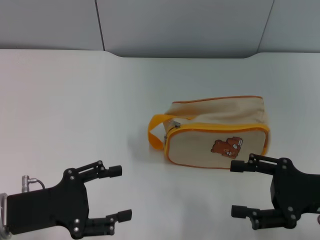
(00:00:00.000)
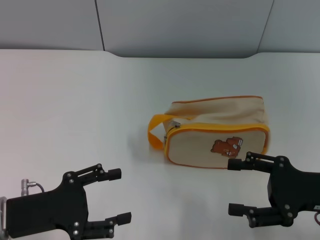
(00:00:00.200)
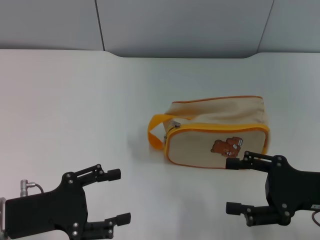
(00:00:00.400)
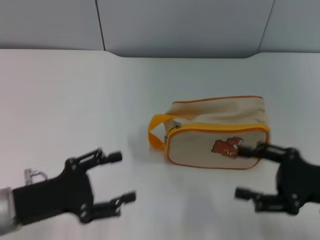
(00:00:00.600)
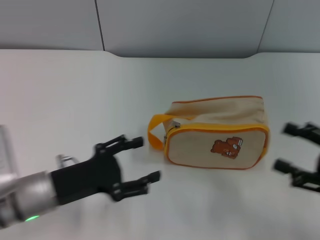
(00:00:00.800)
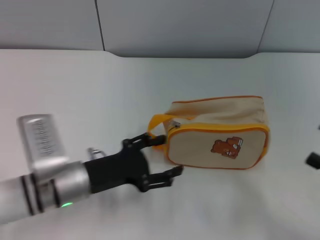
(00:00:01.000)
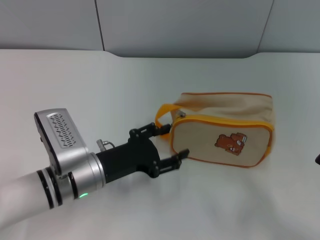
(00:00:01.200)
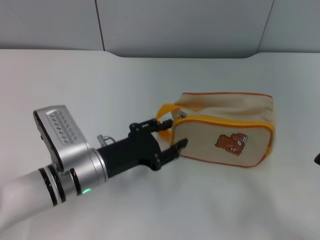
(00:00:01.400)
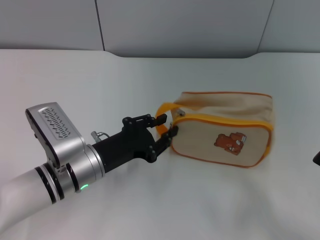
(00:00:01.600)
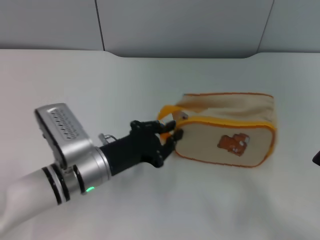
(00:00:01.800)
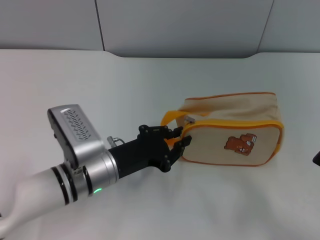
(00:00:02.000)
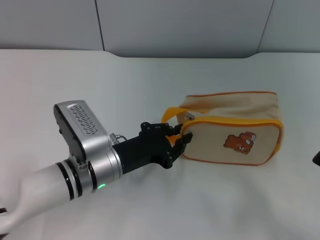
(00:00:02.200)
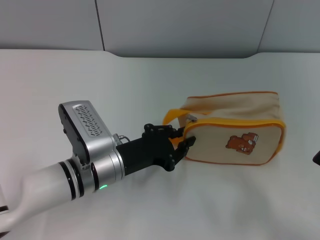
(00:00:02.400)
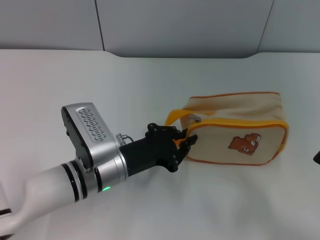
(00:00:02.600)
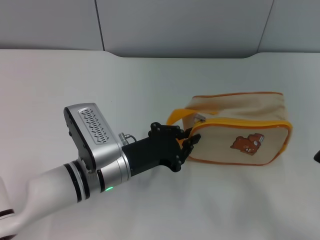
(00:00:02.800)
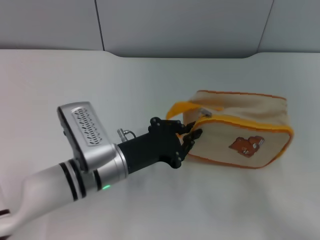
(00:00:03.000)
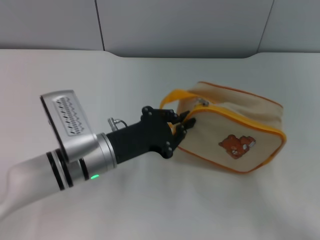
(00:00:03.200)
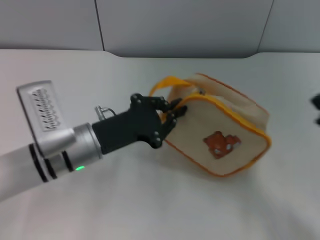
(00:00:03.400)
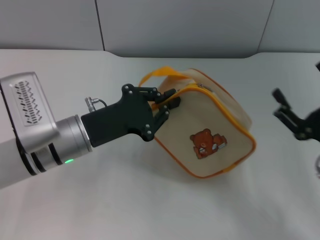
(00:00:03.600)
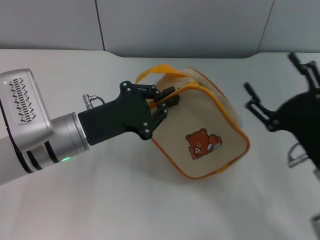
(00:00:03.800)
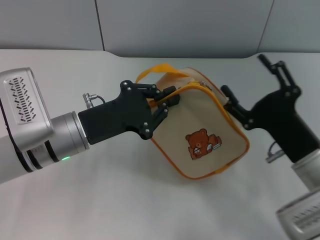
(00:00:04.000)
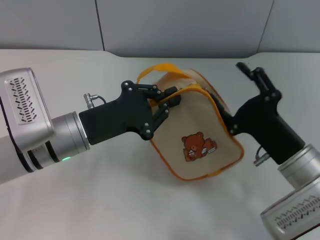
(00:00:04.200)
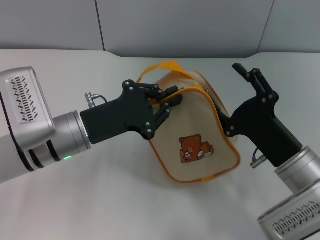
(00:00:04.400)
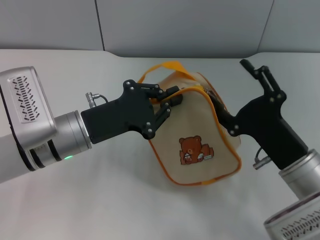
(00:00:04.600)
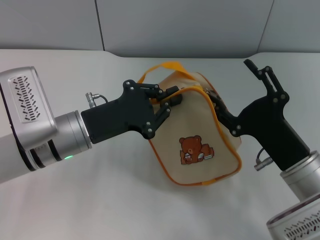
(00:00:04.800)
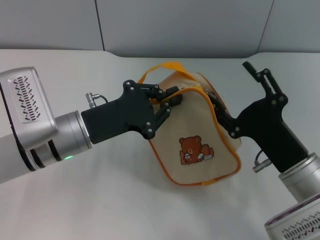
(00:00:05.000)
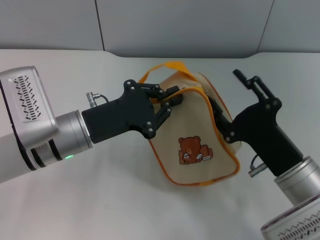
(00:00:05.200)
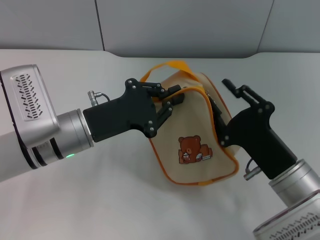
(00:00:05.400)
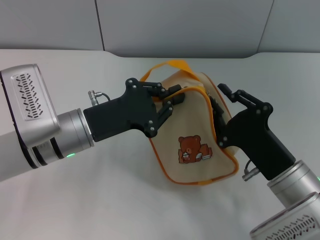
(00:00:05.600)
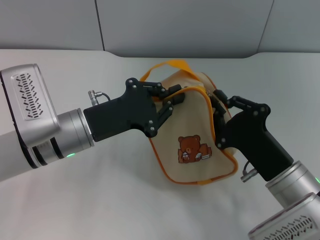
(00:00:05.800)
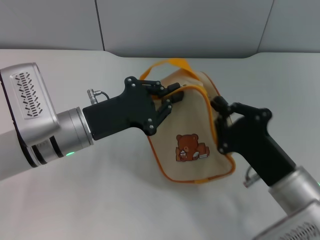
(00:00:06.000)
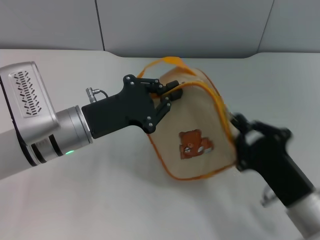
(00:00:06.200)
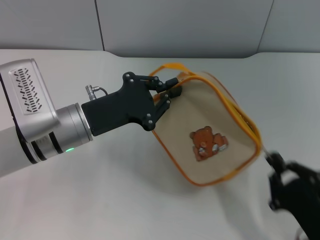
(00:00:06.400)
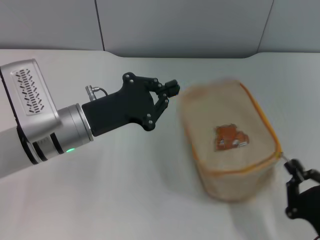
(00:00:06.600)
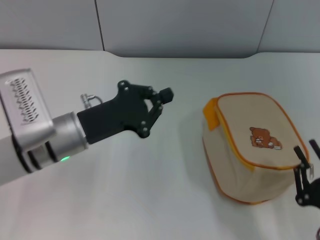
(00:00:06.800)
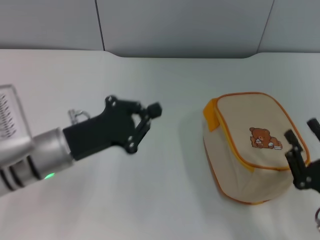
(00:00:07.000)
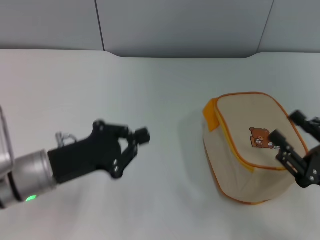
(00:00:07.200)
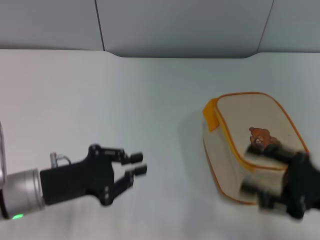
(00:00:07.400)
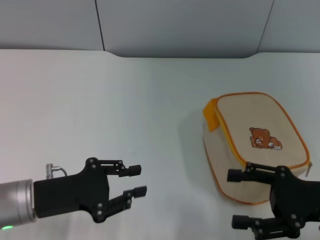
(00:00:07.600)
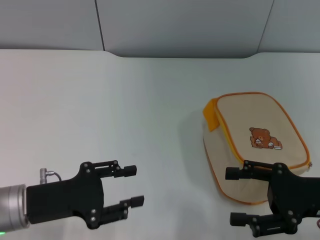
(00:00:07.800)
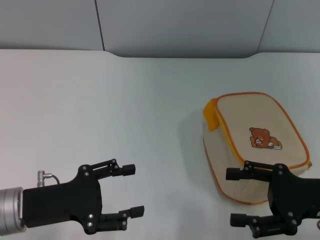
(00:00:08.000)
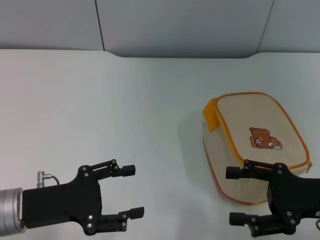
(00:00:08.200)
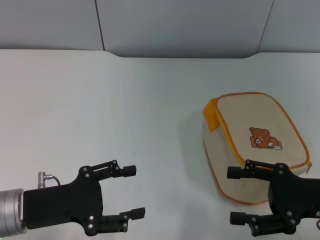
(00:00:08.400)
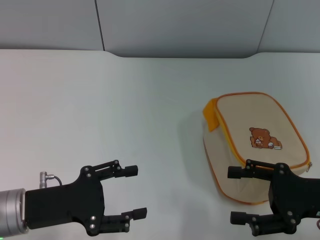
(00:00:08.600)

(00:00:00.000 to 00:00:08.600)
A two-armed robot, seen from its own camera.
Step, 00:00:00.000 - 00:00:03.600: Pick up the bag with left gripper.
Step, 00:00:03.800 - 00:00:06.800: Unzip the zipper of bag with right gripper.
00:00:00.000 - 00:00:01.400: The left gripper goes approximately 15 cm to the right and forward; the right gripper goes about 10 cm to the right and backward.
00:00:01.400 - 00:00:02.800: The left gripper closes up.
00:00:02.800 - 00:00:04.400: The right gripper shifts approximately 20 cm to the left and forward; the left gripper shifts about 5 cm upward and to the left.
00:00:04.400 - 00:00:05.800: The right gripper closes its fingers.
00:00:05.800 - 00:00:07.200: The right gripper shifts roughly 10 cm to the right, and closes, then opens again, while the left gripper moves to the left, about 5 cm.
00:00:07.200 - 00:00:08.600: The left gripper opens its fingers, while the right gripper changes place by approximately 5 cm, and opens up.

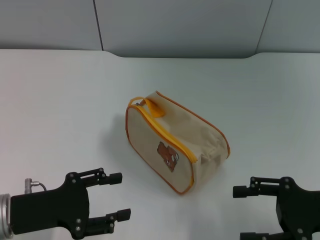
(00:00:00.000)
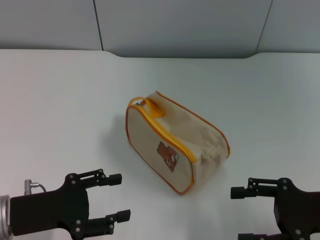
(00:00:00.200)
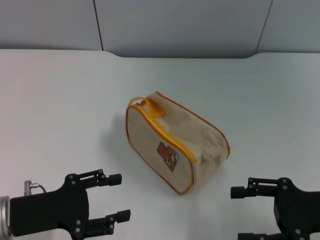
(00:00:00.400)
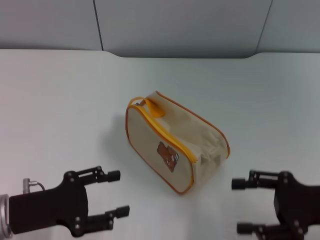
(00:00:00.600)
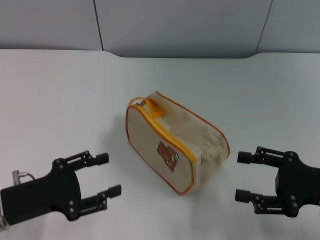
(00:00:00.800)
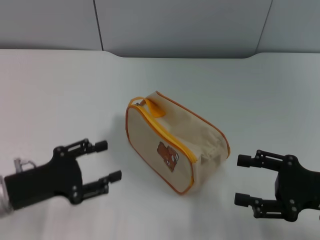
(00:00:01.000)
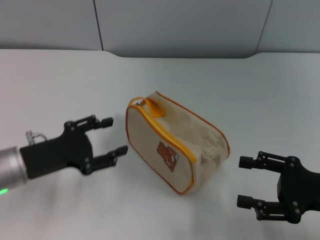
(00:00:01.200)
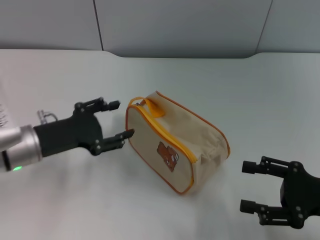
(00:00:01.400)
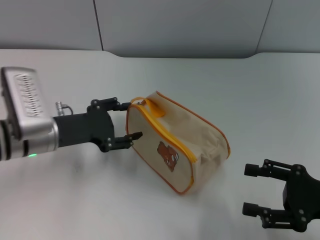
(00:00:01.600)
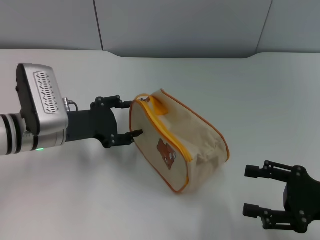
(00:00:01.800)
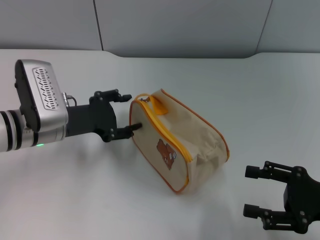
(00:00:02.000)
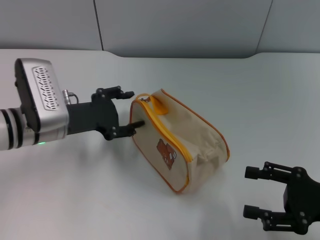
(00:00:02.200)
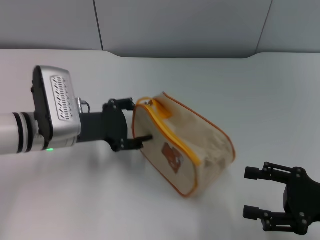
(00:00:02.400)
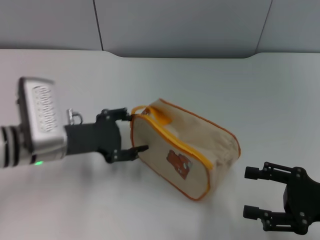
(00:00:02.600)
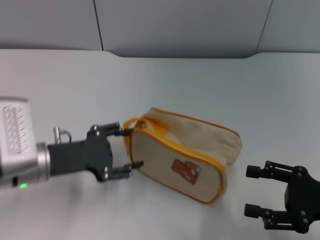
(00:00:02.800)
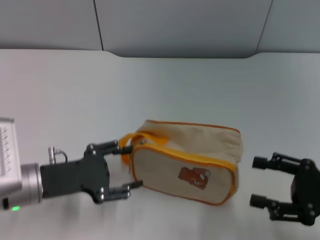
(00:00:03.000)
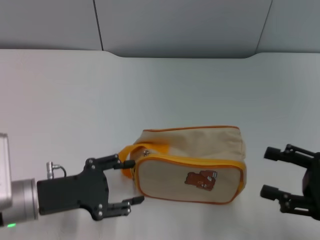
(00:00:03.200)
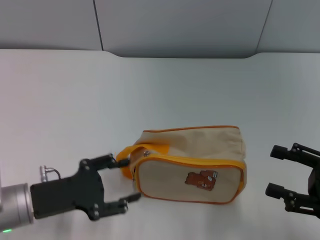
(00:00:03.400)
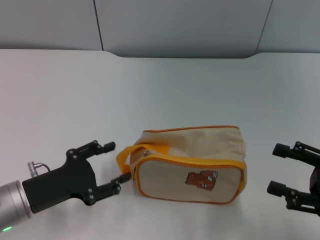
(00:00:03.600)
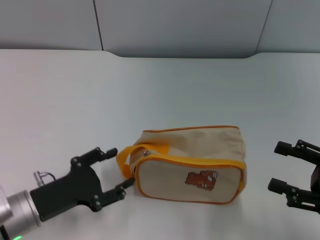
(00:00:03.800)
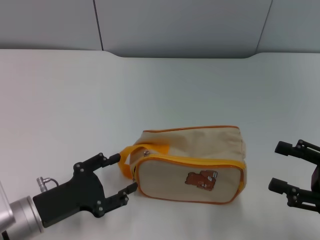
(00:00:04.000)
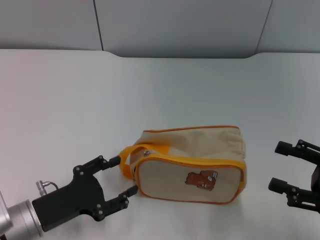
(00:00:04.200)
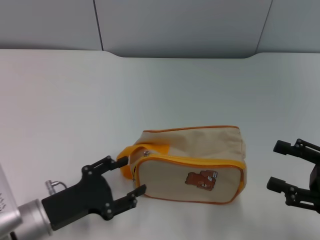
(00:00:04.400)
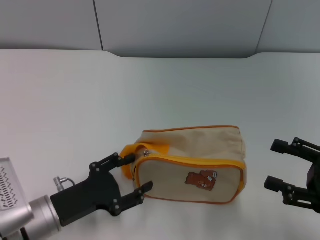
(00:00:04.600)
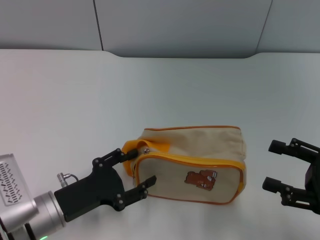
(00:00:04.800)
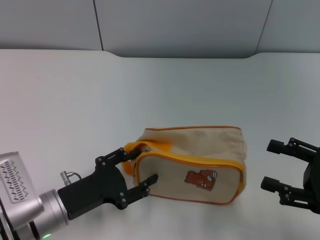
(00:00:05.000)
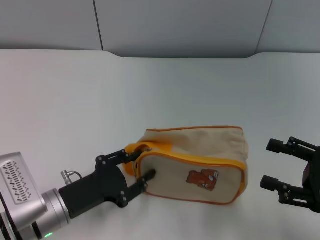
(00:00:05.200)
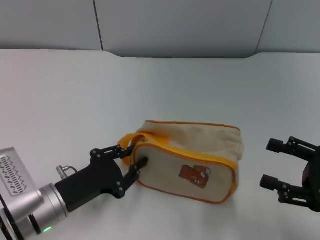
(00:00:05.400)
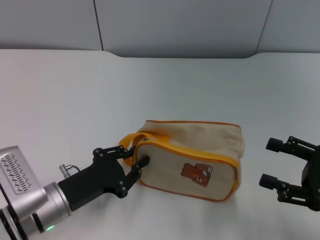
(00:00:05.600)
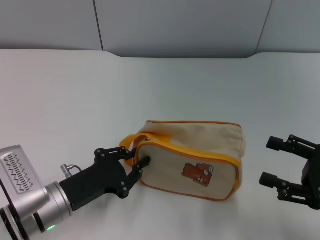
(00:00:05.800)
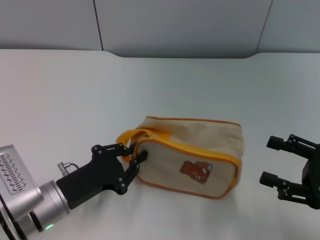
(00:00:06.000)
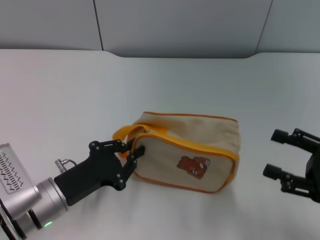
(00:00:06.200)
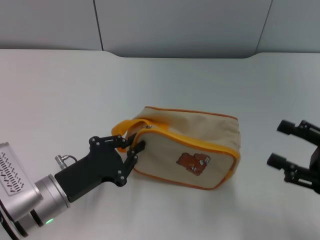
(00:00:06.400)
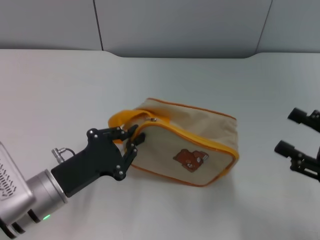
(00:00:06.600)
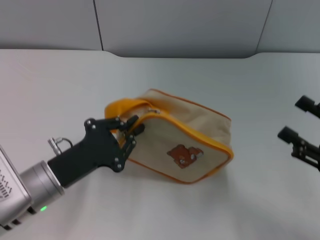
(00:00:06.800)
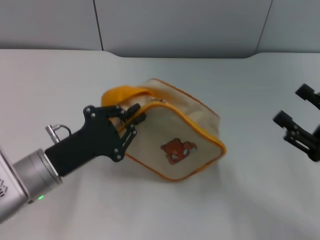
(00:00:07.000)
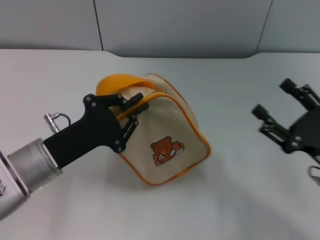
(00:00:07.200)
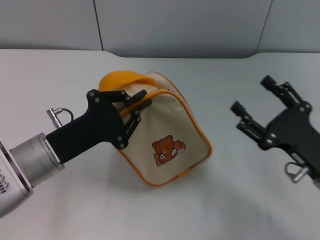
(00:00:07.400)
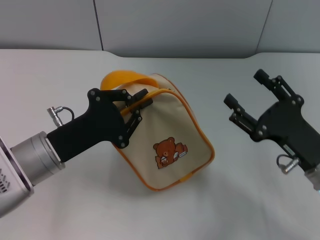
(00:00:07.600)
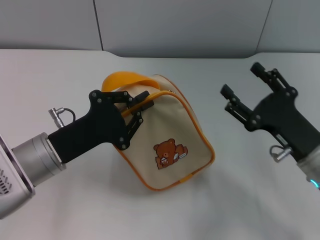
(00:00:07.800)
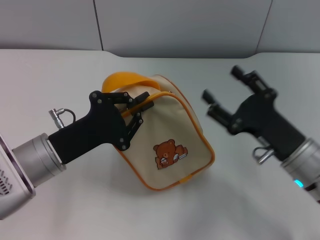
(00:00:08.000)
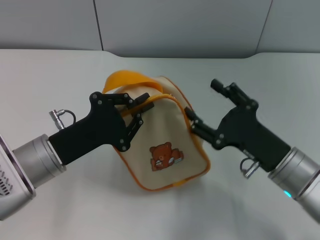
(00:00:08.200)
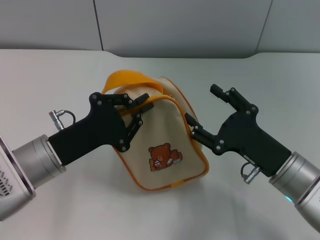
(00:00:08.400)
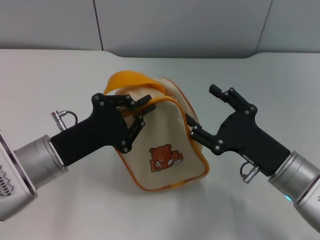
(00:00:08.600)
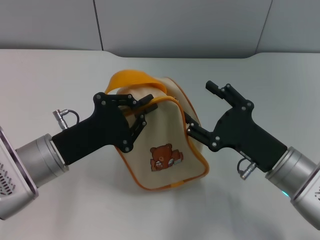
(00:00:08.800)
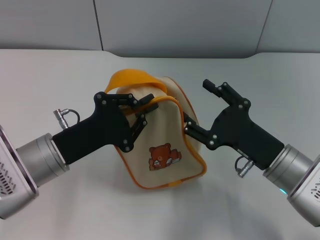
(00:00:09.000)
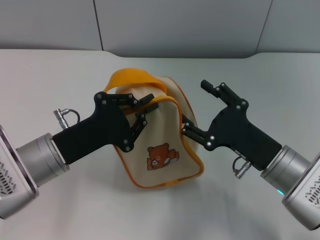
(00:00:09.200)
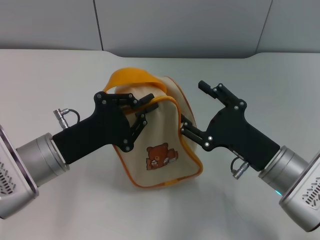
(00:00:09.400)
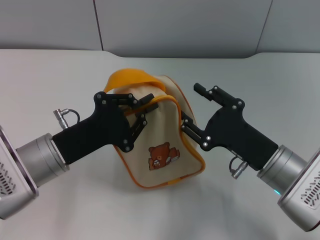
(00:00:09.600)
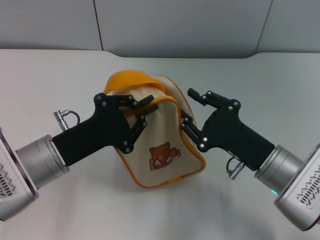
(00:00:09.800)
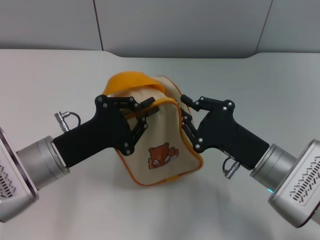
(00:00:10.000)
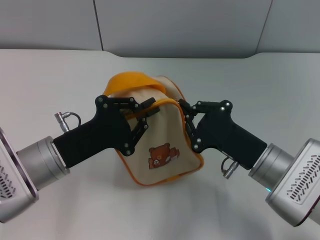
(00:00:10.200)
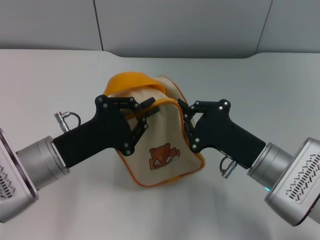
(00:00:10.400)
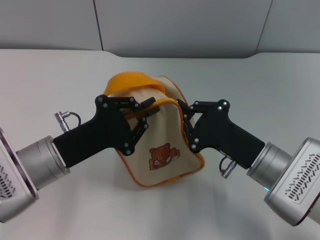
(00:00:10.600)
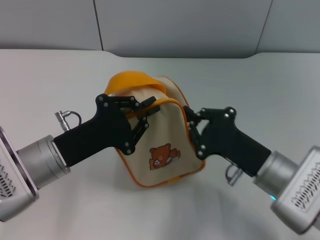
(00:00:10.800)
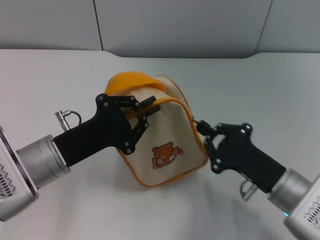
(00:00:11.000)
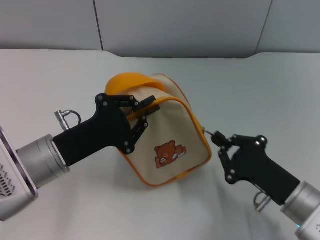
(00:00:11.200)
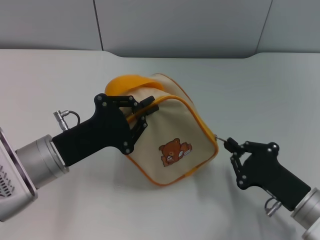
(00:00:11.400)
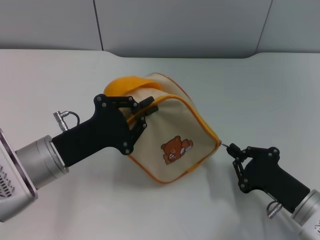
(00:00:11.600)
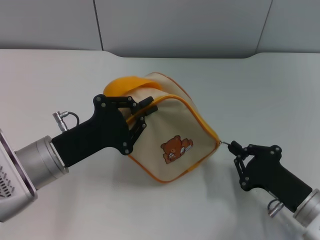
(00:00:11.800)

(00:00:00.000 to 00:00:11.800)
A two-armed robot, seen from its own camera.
Step, 00:00:00.000 - 00:00:06.600: Pick up the bag with left gripper.
00:00:00.000 - 00:00:01.400: The left gripper shifts roughly 10 cm forward.
00:00:01.400 - 00:00:03.000: The left gripper heads backward, covering roughly 5 cm.
00:00:03.000 - 00:00:04.400: The left gripper changes place by approximately 5 cm.
00:00:04.400 - 00:00:06.000: The left gripper closes its fingers.
00:00:06.000 - 00:00:07.400: The right gripper moves to the left, roughly 5 cm. Meanwhile the left gripper goes roughly 5 cm upward.
00:00:07.400 - 00:00:08.800: The right gripper is displaced to the left by some 5 cm.
00:00:08.800 - 00:00:10.400: The right gripper closes.
00:00:10.400 - 00:00:11.800: The right gripper is displaced to the right and backward by some 10 cm.

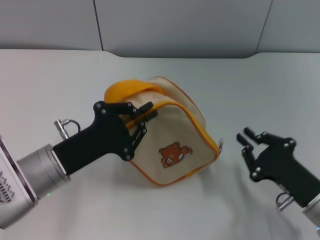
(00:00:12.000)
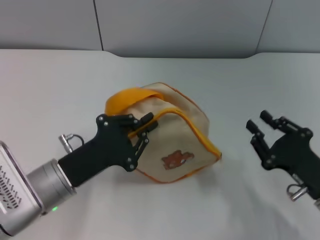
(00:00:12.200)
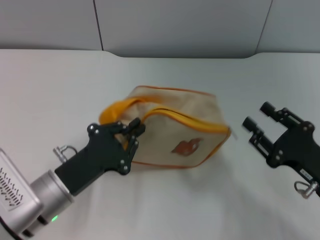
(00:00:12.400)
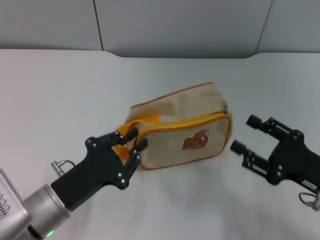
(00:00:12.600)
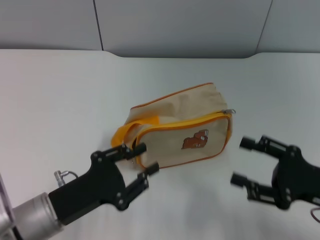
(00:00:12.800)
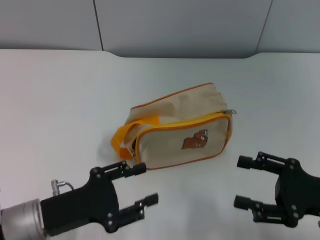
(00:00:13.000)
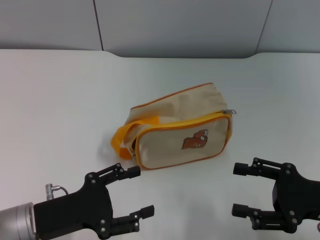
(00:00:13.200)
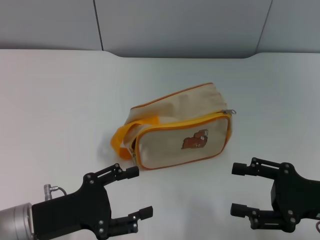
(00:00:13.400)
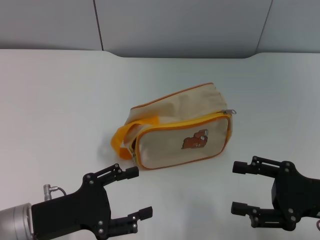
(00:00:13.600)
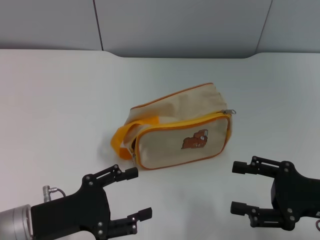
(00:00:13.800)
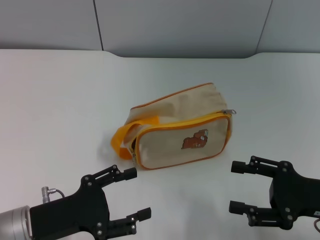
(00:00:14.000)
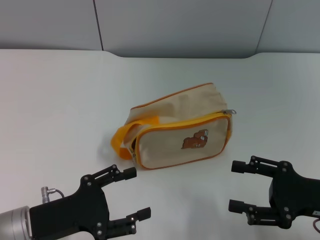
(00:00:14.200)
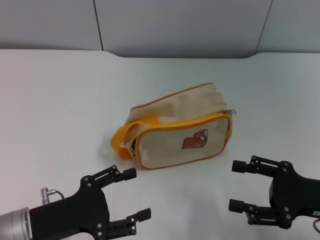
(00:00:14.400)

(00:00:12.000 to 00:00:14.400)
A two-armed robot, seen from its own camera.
Step, 00:00:12.200 - 00:00:12.600: Place the bag on the table with left gripper.
00:00:12.000 - 00:00:13.200: The right gripper shifts some 5 cm upward, and opens. The left gripper moves backward, about 5 cm, and opens up.
00:00:13.200 - 00:00:14.400: The left gripper opens up.
